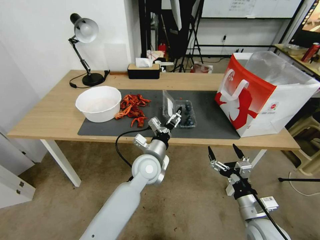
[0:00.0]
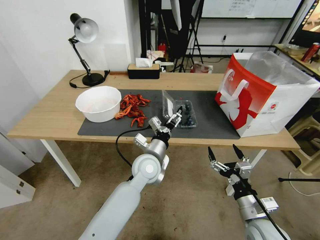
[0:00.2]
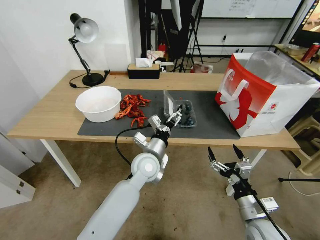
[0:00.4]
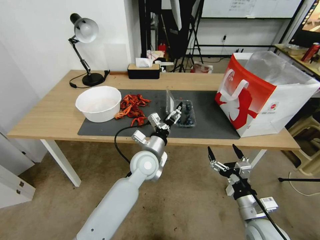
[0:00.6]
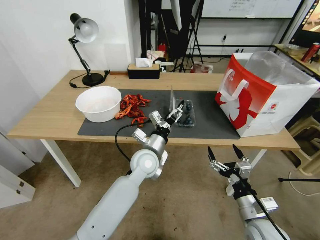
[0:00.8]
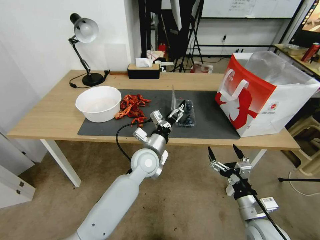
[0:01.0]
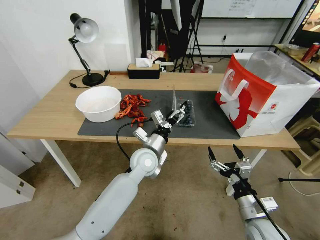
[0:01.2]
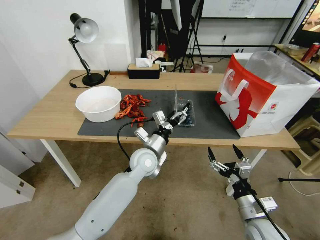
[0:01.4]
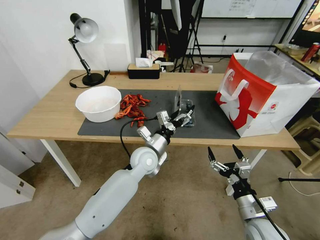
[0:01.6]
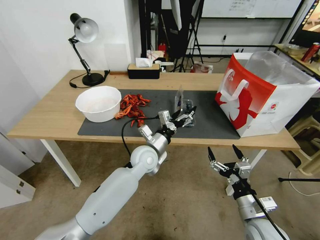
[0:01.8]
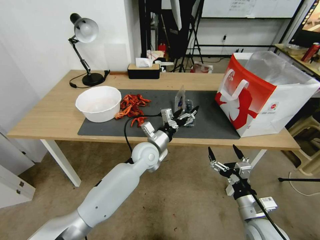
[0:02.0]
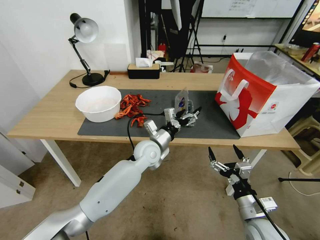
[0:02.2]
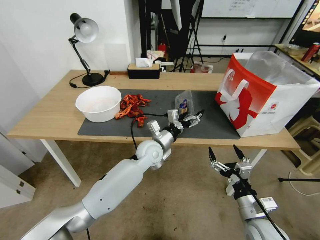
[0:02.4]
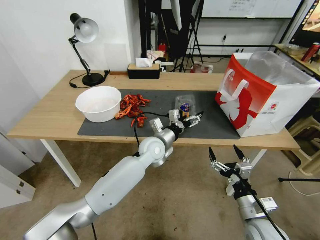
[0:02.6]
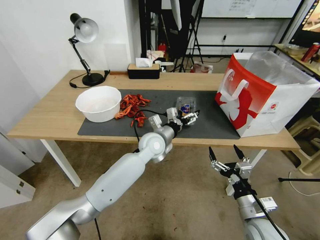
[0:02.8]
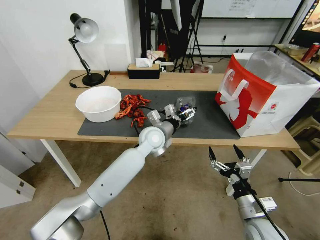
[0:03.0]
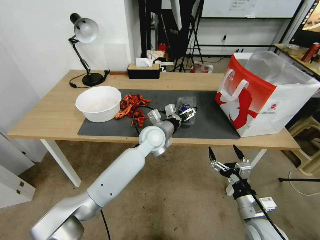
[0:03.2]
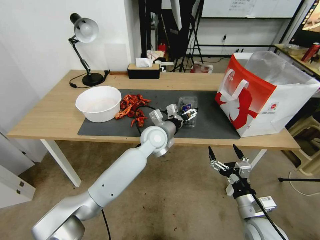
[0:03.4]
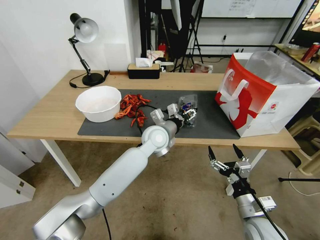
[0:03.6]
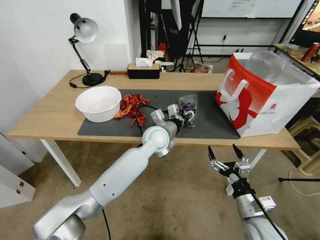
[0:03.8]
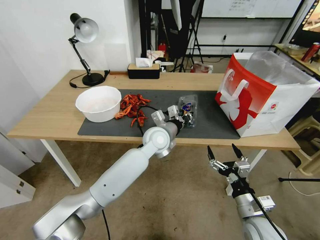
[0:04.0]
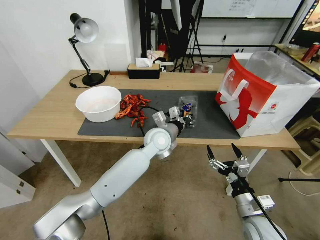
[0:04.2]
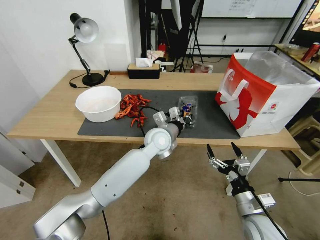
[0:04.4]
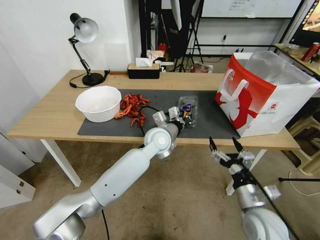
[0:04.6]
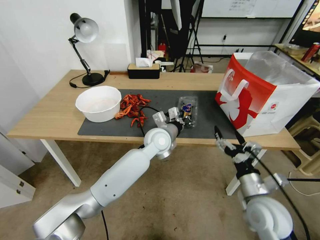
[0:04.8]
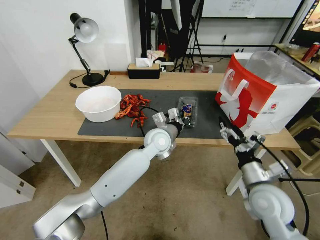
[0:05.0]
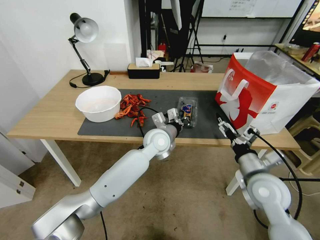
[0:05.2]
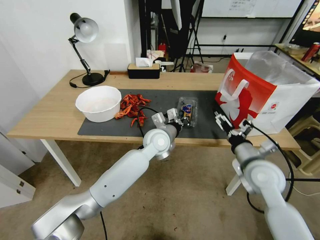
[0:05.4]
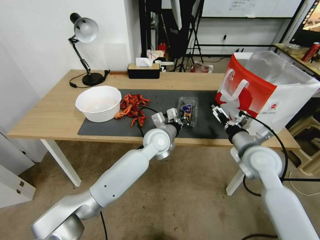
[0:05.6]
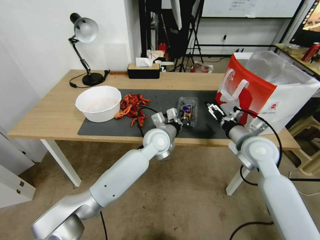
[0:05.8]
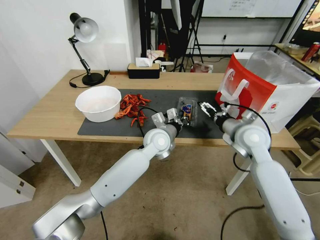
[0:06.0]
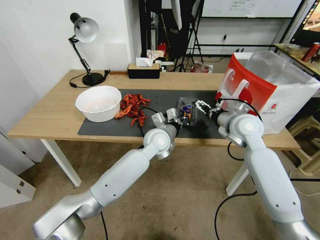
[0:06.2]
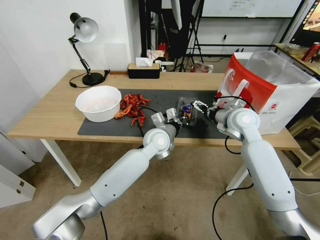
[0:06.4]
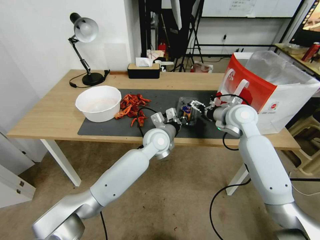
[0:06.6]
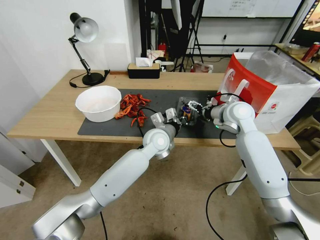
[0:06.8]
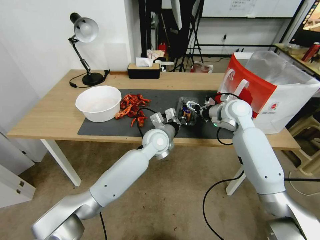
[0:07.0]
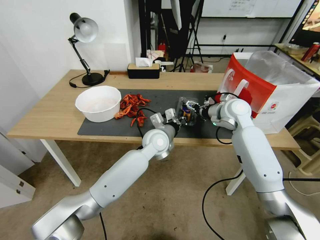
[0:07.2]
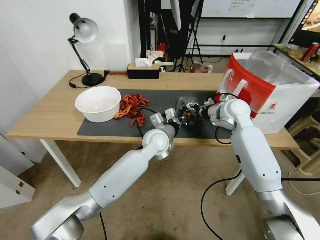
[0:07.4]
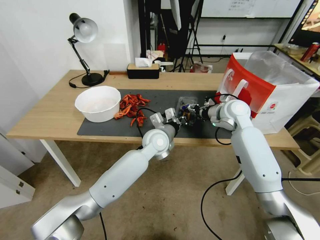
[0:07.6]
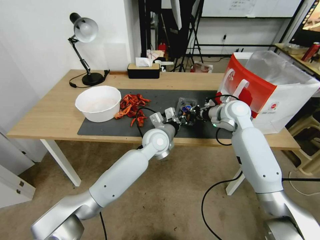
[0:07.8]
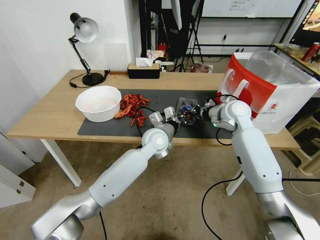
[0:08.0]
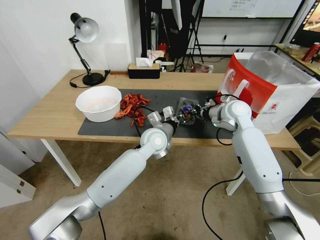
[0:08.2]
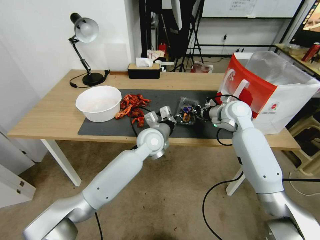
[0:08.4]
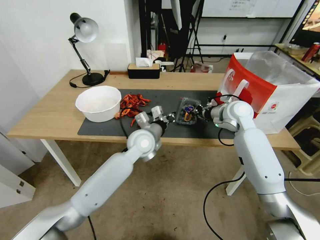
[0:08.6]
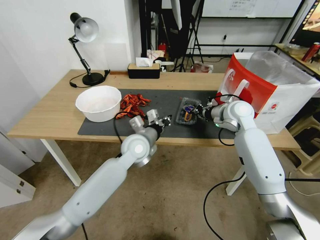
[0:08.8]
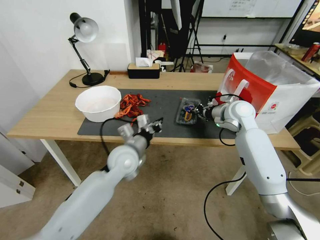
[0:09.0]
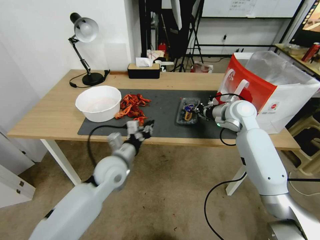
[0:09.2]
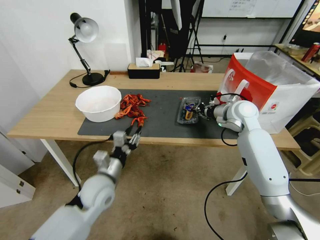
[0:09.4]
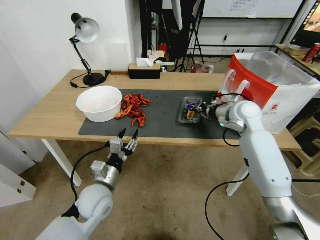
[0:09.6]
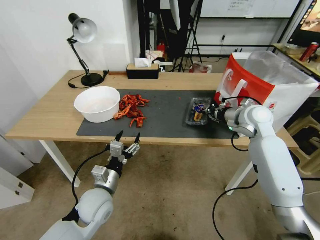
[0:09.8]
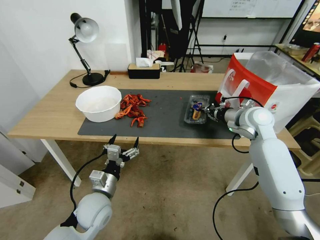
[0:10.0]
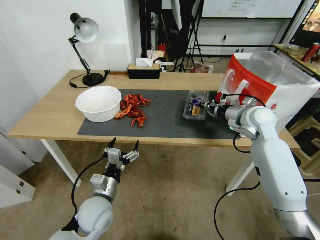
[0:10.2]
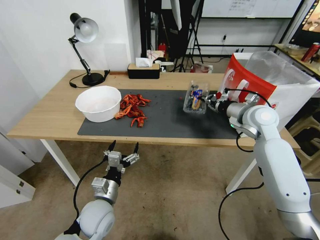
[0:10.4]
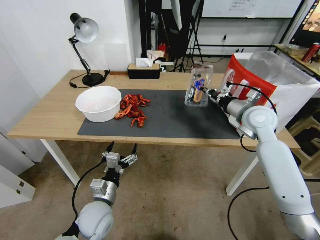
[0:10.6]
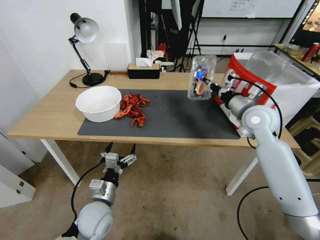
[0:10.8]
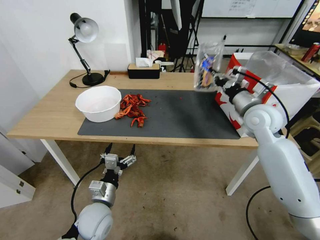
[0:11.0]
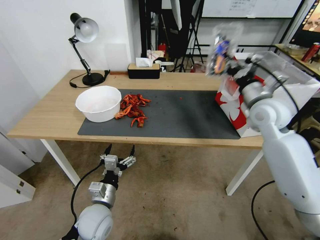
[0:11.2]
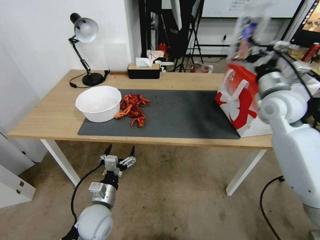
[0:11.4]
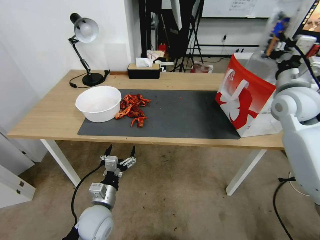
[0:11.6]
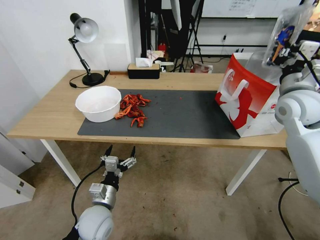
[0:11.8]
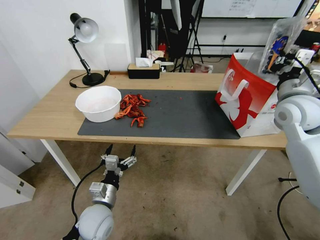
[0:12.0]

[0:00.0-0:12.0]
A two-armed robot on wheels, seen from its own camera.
Task of the whole recording: Close the takeout container lid, then place the container into the takeout bag.
0:01.6 to 0:03.0: The left gripper travels forward by roughly 5 cm.
0:03.0 to 0:04.4: The left gripper closes up.
0:04.4 to 0:06.0: The right gripper is displaced forward and upward by some 25 cm.
0:06.0 to 0:07.6: The right gripper is displaced forward by roughly 10 cm, and closes its fingers.
0:07.6 to 0:09.0: The left gripper shifts about 10 cm to the left and backward; the right gripper closes its fingers.
0:09.0 to 0:10.4: The right gripper changes place by about 5 cm; the left gripper shifts some 20 cm backward, downward and to the left, and opens.
0:10.4 to 0:12.0: The right gripper moves upward and to the right, roughly 10 cm.

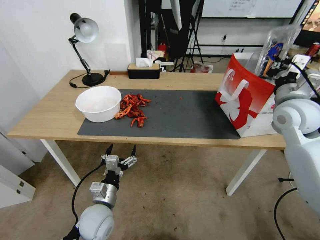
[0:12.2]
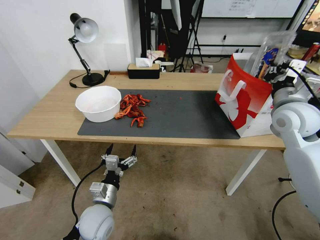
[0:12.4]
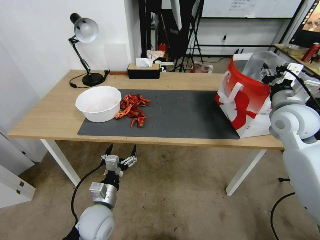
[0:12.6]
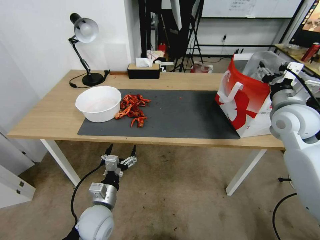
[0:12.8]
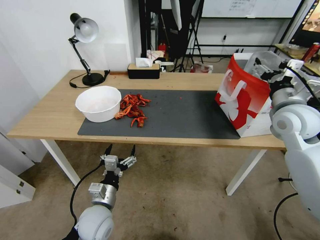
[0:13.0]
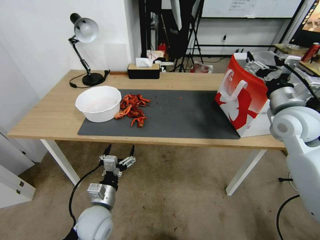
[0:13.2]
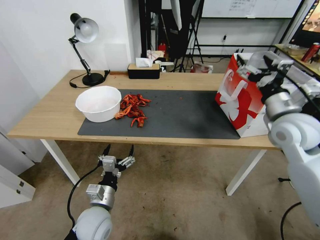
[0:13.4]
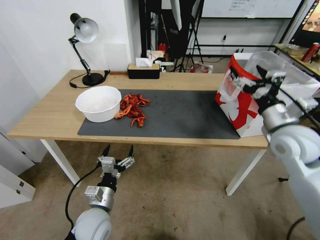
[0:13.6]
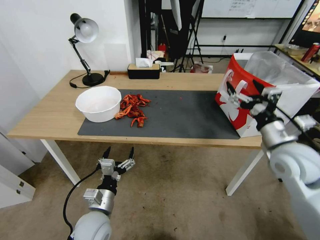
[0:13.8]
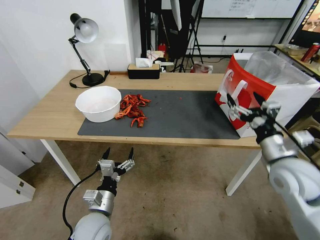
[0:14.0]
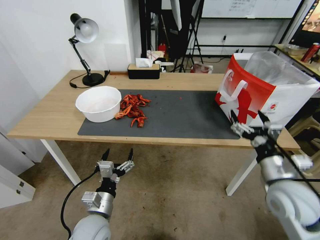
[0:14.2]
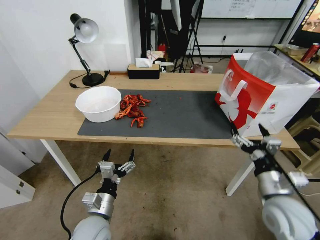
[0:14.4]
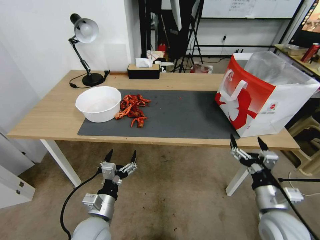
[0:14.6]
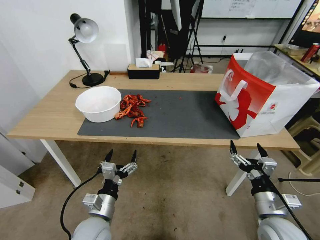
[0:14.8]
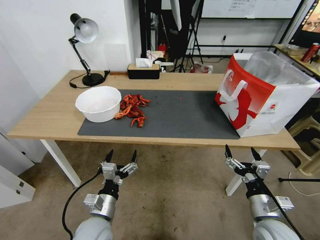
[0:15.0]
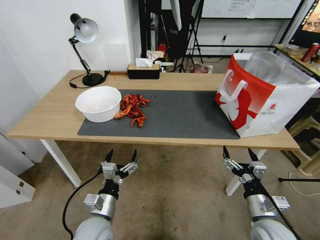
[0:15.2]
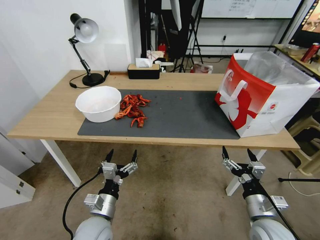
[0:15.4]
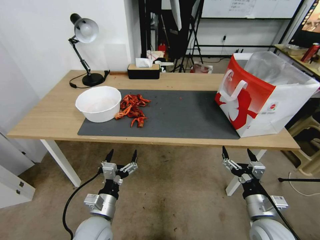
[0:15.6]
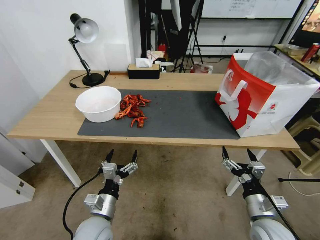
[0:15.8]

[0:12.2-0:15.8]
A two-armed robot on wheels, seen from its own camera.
Task of the whole recording: Close the takeout container lid, then place the container into the takeout bag.
0:12.2 to 0:14.0: The right gripper moves backward and downward, roughly 15 cm, and opens its fingers.
0:14.0 to 0:15.8: The right gripper heads downward and backward, covering some 20 cm.

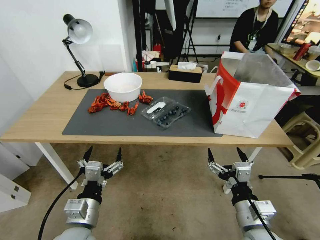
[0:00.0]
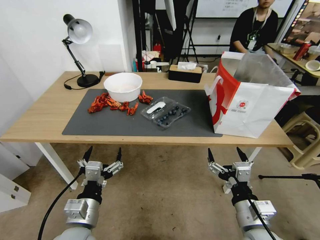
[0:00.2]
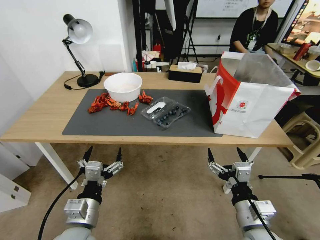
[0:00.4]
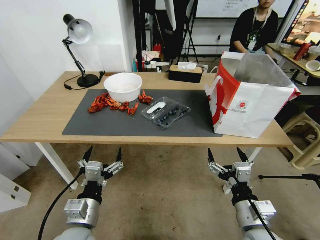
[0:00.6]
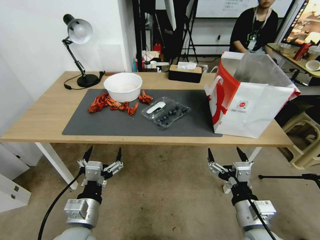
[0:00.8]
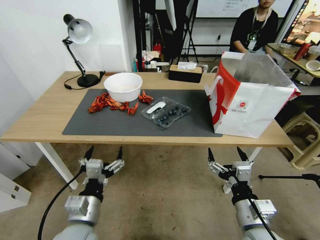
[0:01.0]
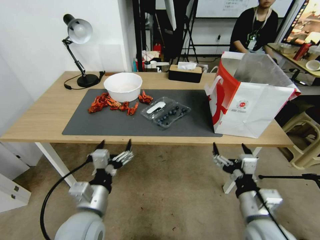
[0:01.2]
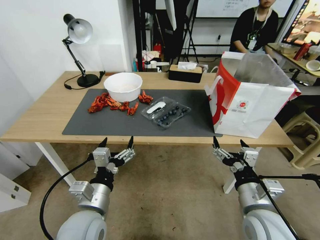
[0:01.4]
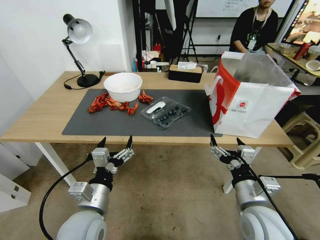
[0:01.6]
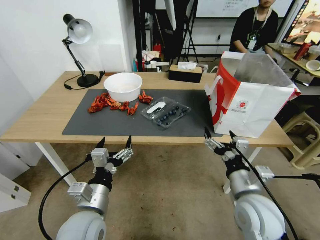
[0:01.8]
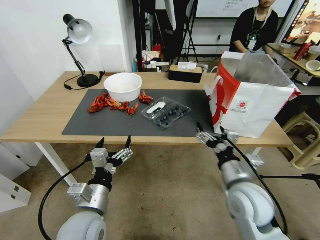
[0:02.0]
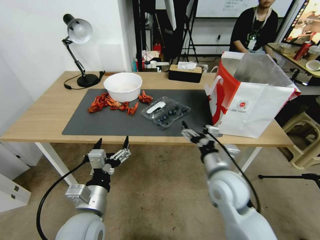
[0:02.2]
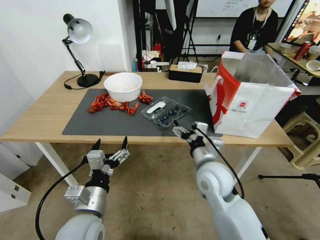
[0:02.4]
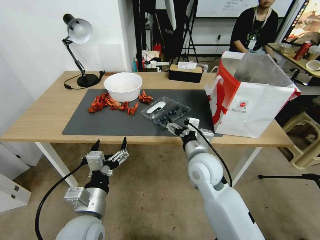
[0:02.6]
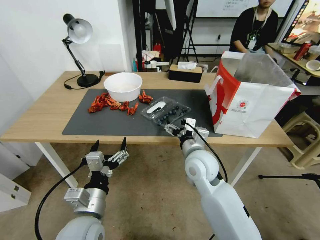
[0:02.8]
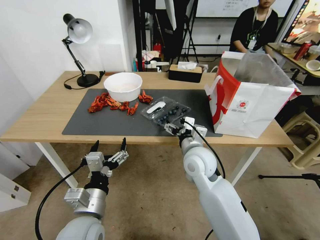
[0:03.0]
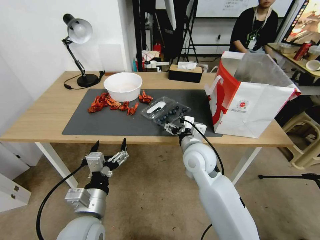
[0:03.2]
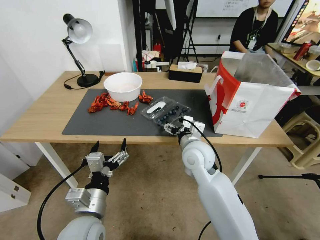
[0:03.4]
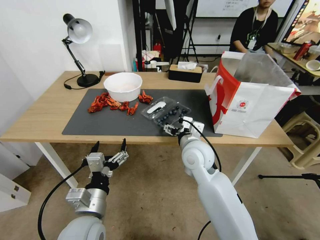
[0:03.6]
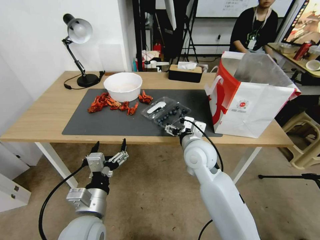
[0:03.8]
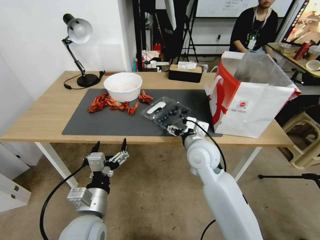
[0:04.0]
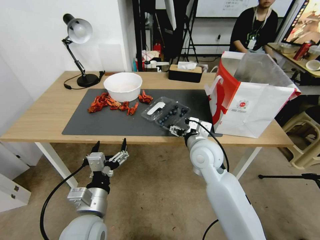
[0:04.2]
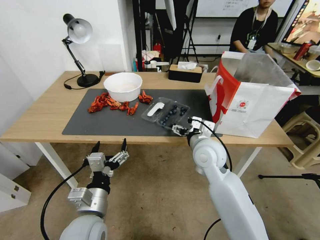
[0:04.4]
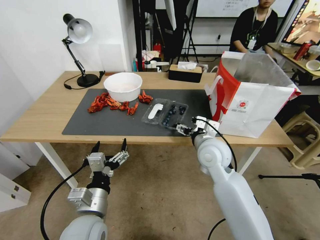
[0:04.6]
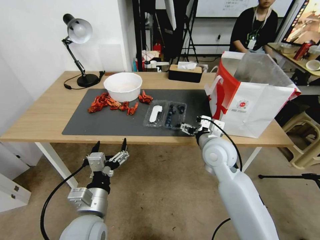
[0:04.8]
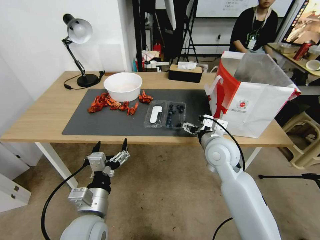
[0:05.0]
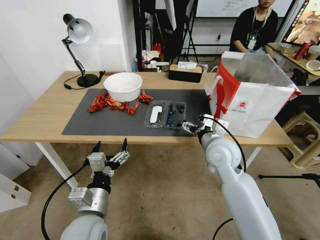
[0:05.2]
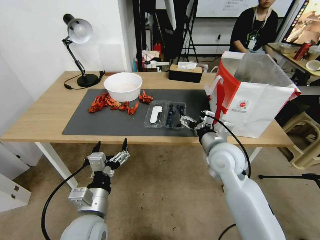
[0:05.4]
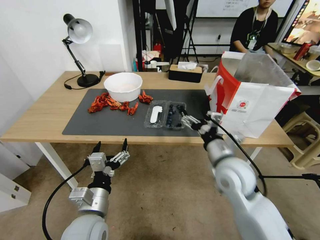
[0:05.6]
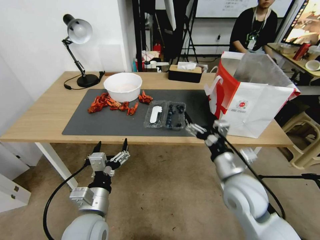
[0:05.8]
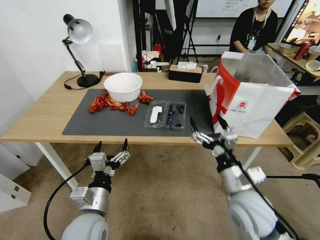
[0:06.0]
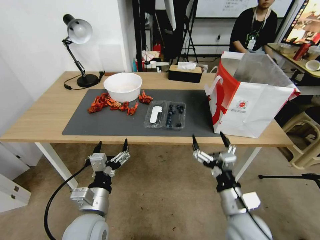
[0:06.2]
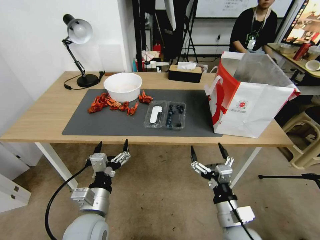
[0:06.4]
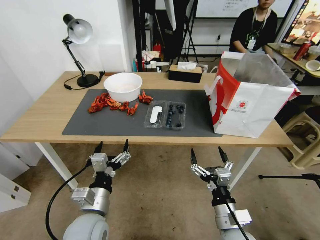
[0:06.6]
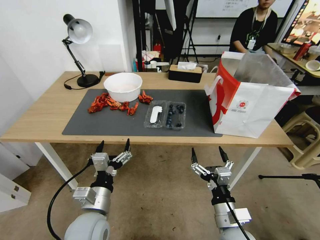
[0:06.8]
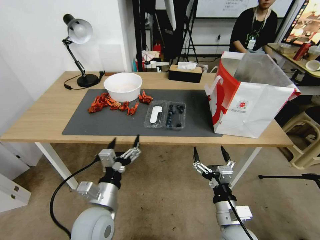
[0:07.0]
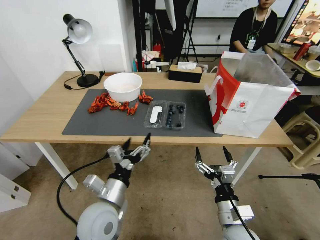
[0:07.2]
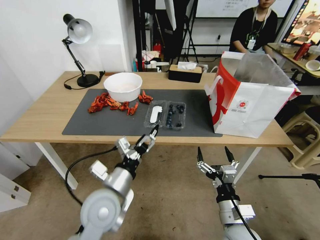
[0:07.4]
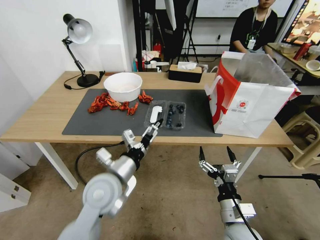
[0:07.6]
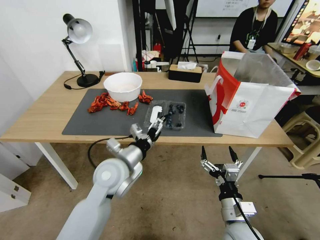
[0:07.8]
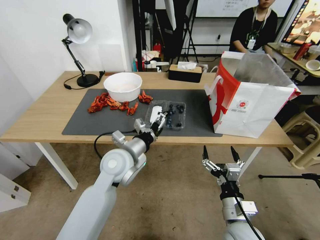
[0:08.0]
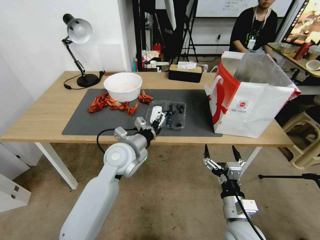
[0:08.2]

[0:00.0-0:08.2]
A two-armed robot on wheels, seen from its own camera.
Task of the whole recording: Close the takeout container lid, then place the container into the takeout bag.
0:01.6 to 0:03.2: The right gripper is displaced forward and to the left by some 20 cm.
0:03.2 to 0:05.0: The right gripper goes roughly 5 cm to the right.
0:05.0 to 0:06.6: The right gripper moves backward and downward, approximately 25 cm.
0:06.6 to 0:08.2: The left gripper travels forward by some 20 cm.
